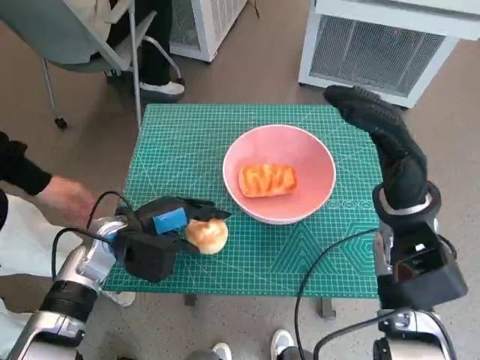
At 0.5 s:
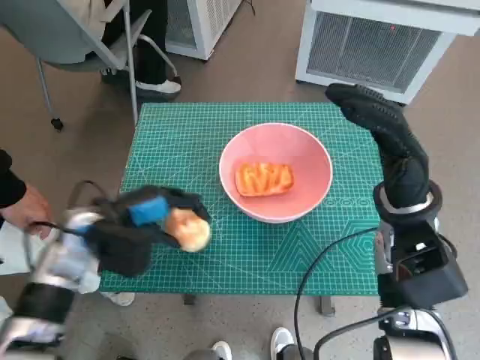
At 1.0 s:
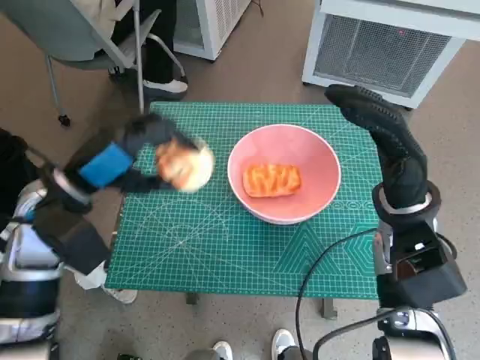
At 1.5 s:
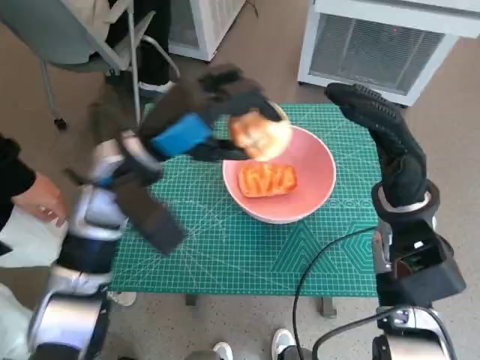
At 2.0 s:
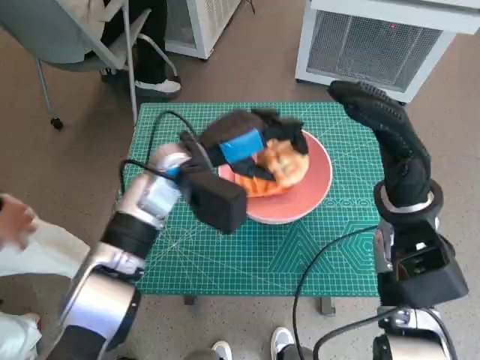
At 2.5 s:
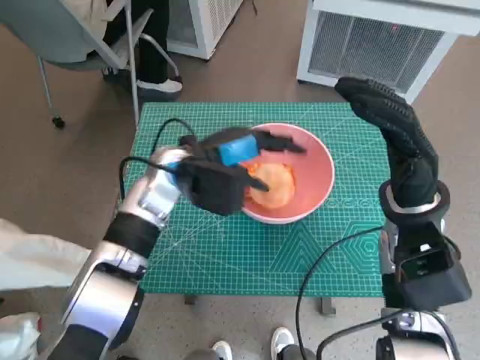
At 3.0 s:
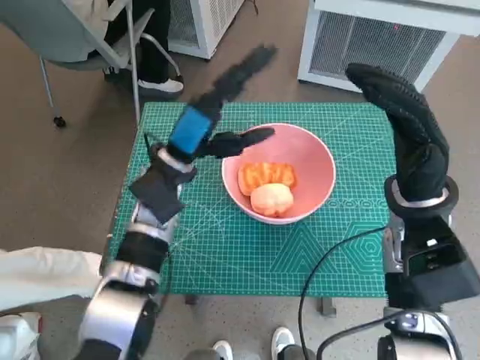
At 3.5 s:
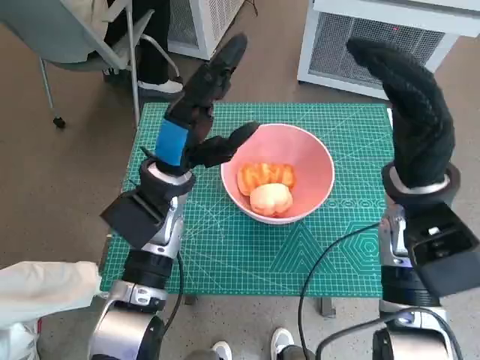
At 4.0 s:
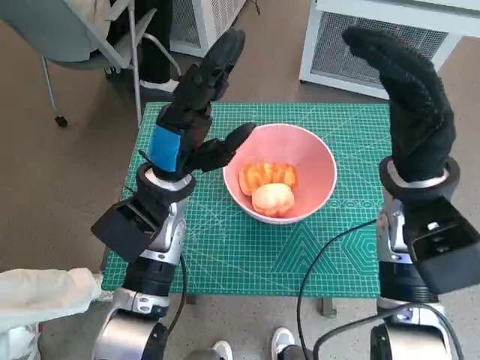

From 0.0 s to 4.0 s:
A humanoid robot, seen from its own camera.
Task of the whole recording: Push the bowl to the center of the table and put the bread into the bowl.
Step, from 0.5 s to 2.5 s: Place the round bread in pink bowl with left hand.
From 0.0 s to 2.0 s: The left hand travels to the right, upward and forward by some 15 cm.

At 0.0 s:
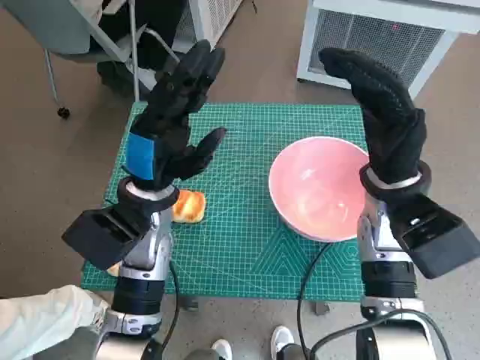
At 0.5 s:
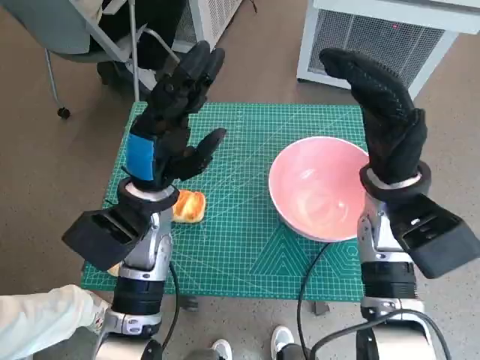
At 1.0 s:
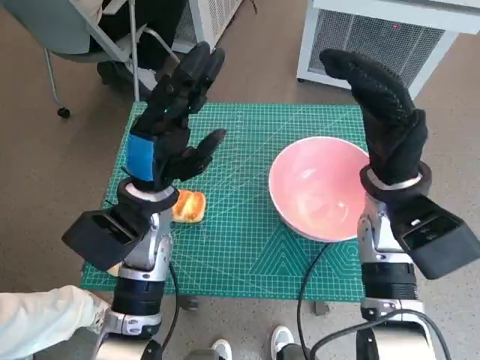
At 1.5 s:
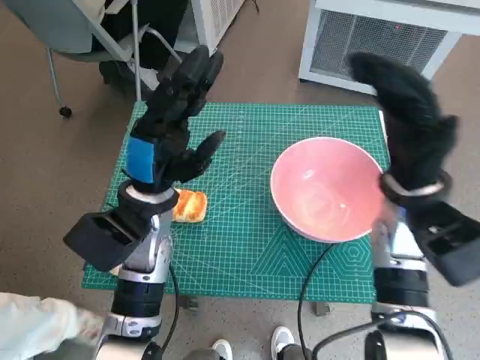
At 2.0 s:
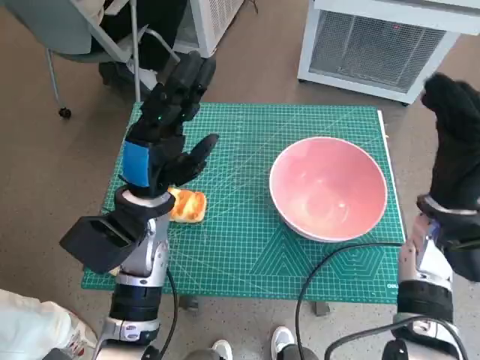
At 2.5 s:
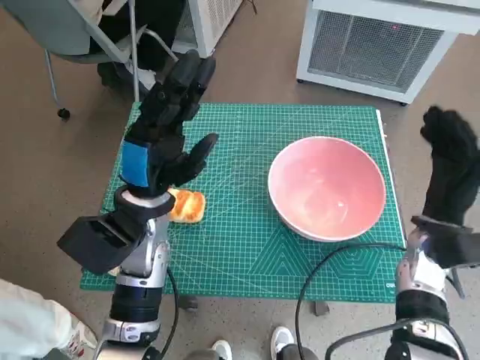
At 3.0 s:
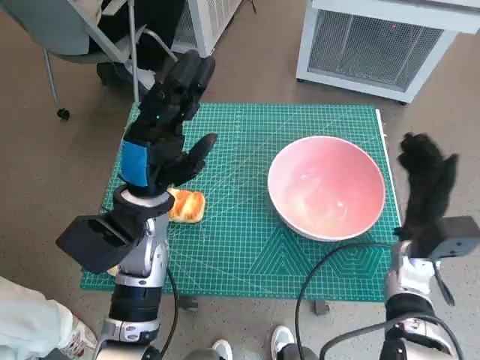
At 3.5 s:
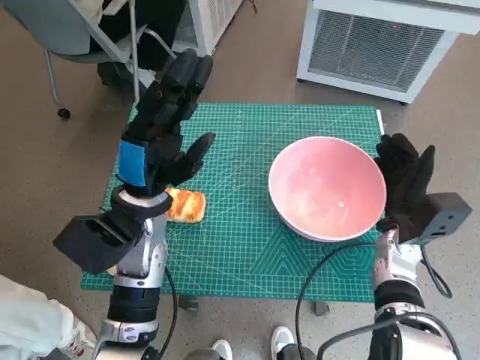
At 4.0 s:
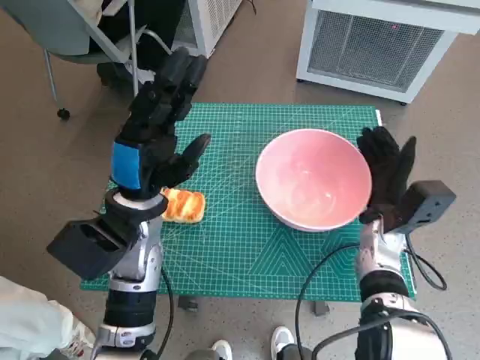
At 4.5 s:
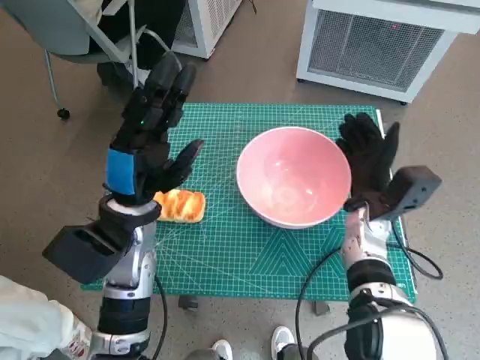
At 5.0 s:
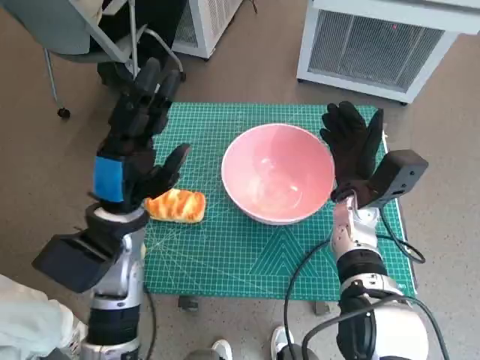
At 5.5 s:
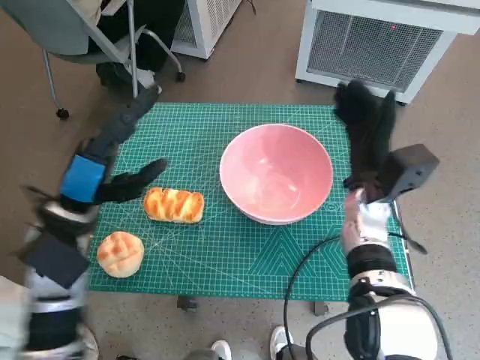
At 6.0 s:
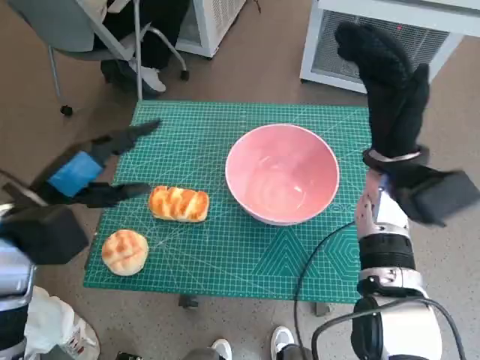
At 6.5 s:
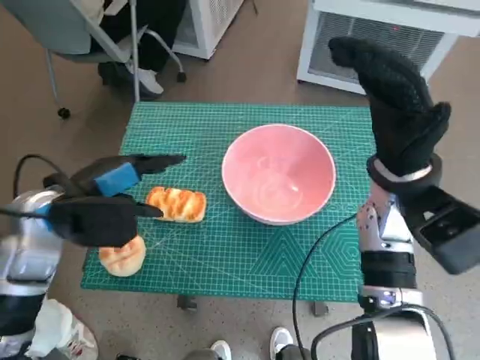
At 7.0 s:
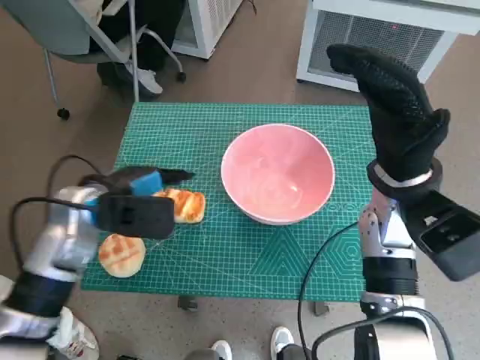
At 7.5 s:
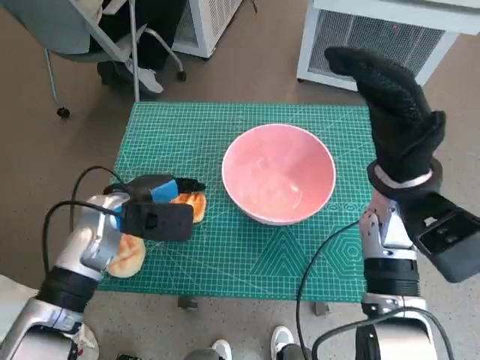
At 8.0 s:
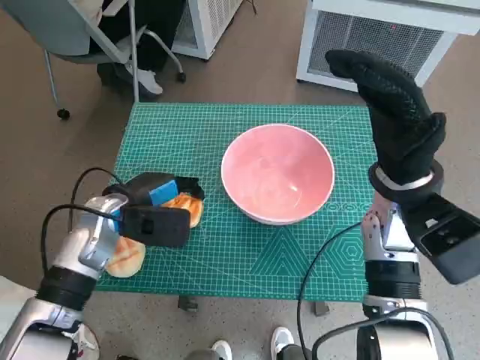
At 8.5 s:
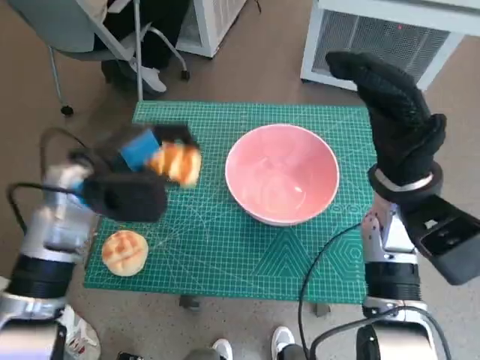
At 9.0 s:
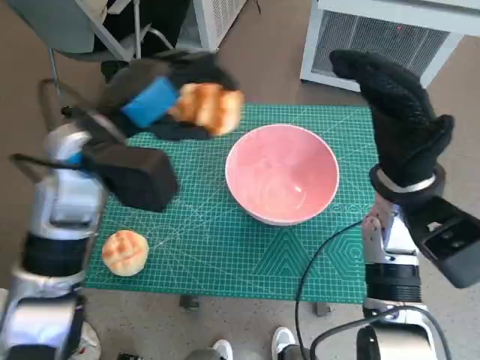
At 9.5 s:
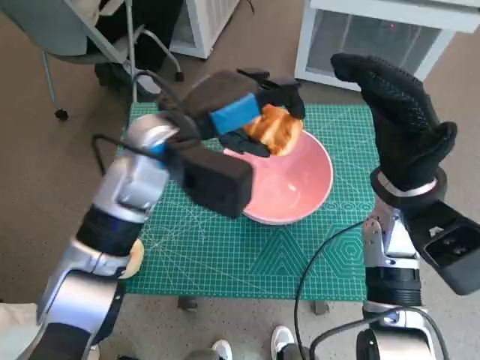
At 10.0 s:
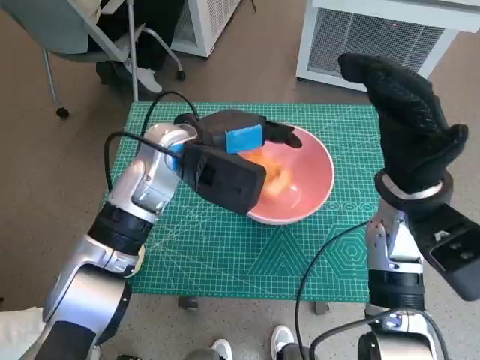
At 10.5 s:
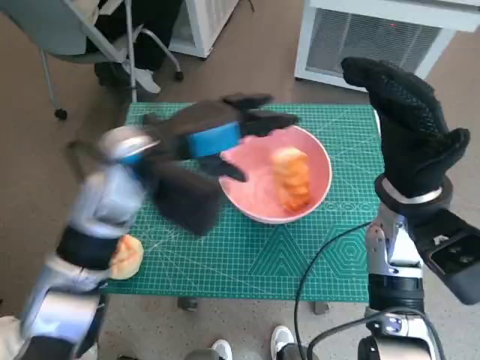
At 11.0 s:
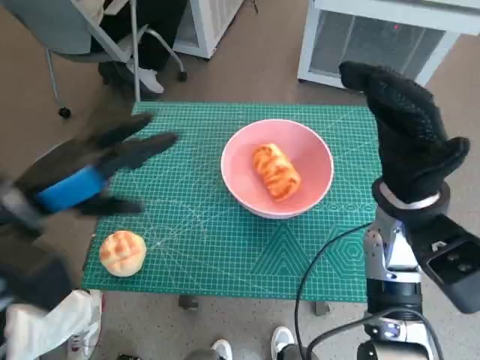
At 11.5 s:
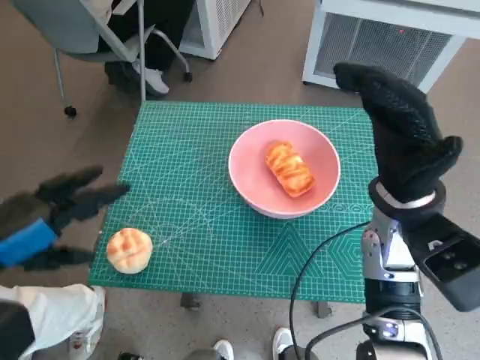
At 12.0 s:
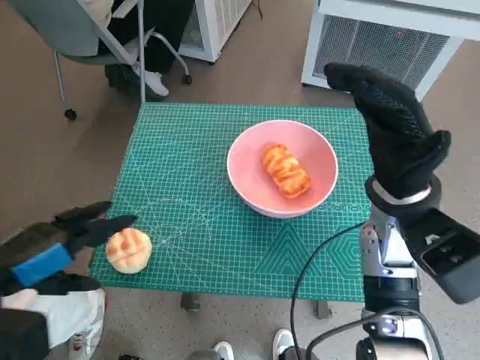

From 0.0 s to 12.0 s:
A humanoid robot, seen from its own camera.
Task of the whole recording: Push the bowl to the center of the table and put the bread into the bowl.
Step, from 0.0 s to 5.0 s: Move the pink bowl to the center of table with right hand.
Step, from 5.5 s to 7.5 s: Grasp the long bread with left hand.
Step, from 8.0 s to 10.0 s: Place the long bread in pink bowl with left hand.
From 2.0 s to 4.0 s: The right hand goes about 10 cm downward.
From 4.0 s to 6.0 s: The right hand goes roughly 10 cm upward, while the left hand travels to the left by about 10 cm.
From 6.0 s to 8.0 s: The left hand travels downward, to the right and forward by approximately 10 cm.
From 8.0 s to 10.0 s: The left hand travels to the right and upward by roughly 15 cm.
From 10.0 s to 12.0 s: The left hand heads to the left and backward, covering approximately 25 cm.

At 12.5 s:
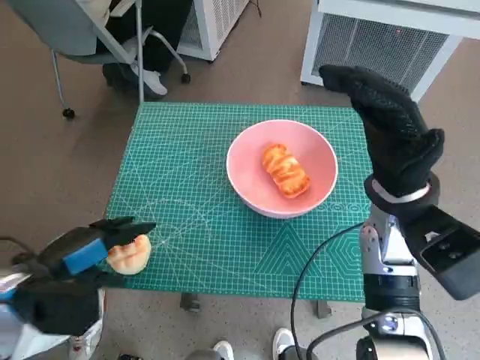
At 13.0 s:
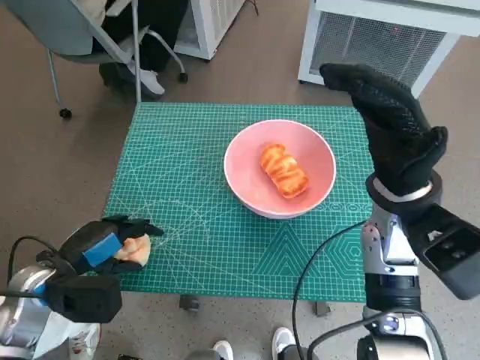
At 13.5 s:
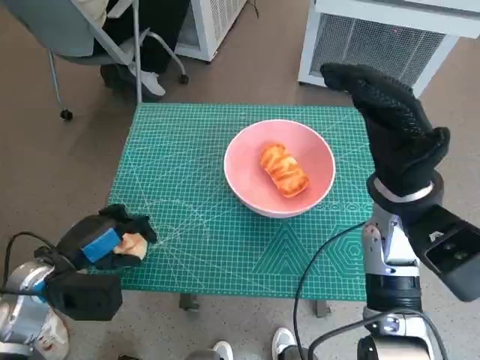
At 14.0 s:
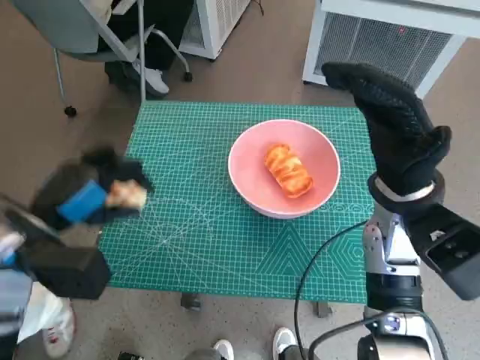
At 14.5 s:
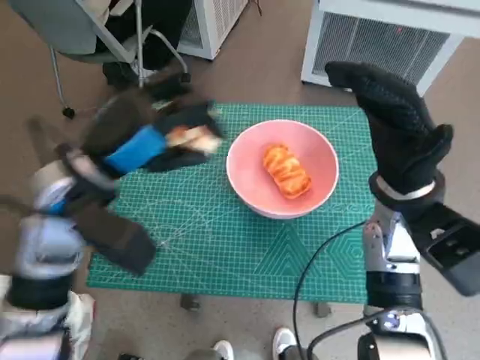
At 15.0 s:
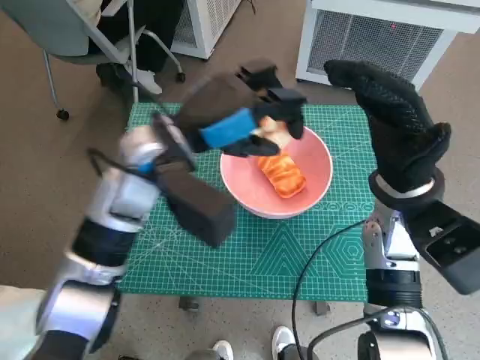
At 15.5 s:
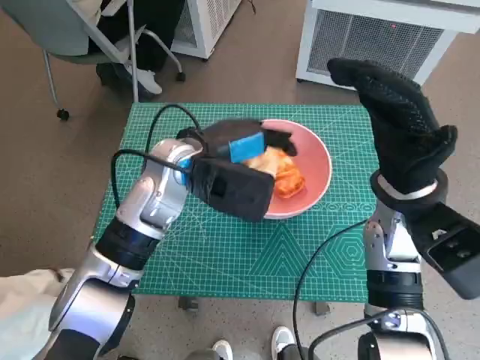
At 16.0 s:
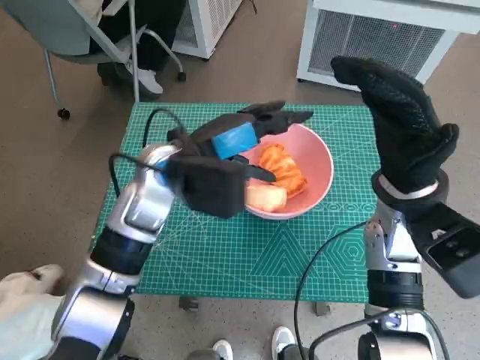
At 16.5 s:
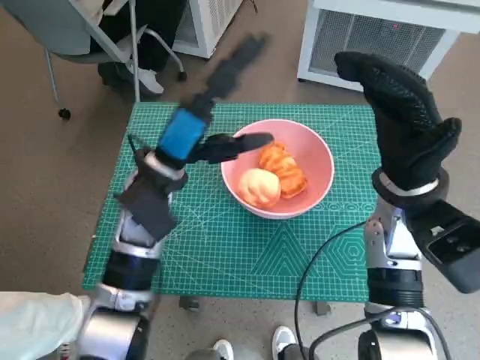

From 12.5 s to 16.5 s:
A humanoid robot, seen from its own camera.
Task of the whole recording: Push the bowl to the center of the table and put the bread into the bowl.
Step, from 13.5 s to 15.5 s: Place the round bread in pink bowl with left hand.
From 12.5 s to 14.5 s: The left hand travels upward, to the right and forward by roughly 15 cm.
From 14.5 s to 16.5 s: The left hand heads to the right, covering about 5 cm.
